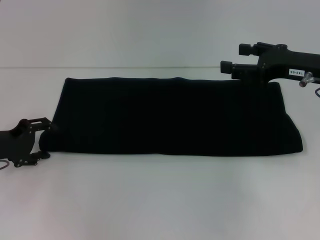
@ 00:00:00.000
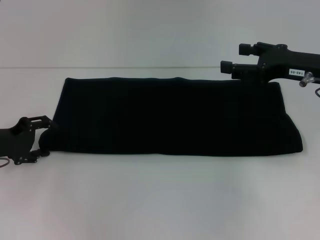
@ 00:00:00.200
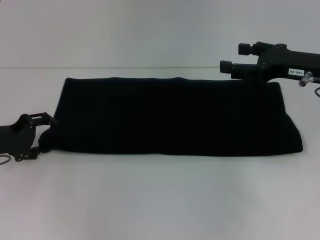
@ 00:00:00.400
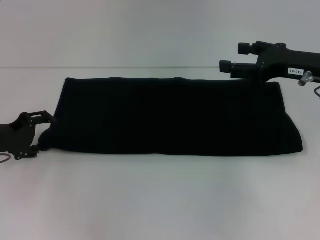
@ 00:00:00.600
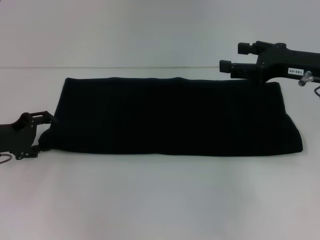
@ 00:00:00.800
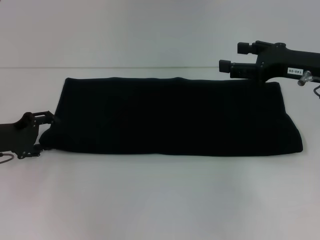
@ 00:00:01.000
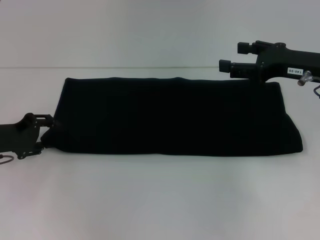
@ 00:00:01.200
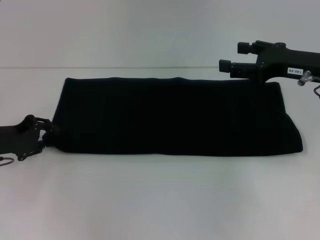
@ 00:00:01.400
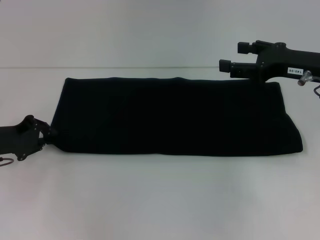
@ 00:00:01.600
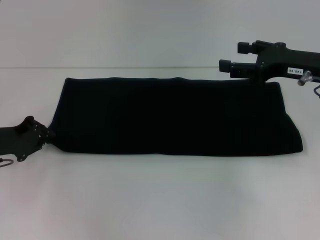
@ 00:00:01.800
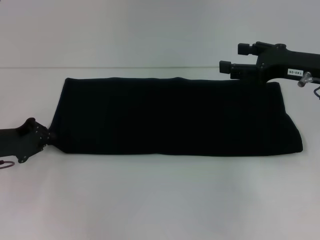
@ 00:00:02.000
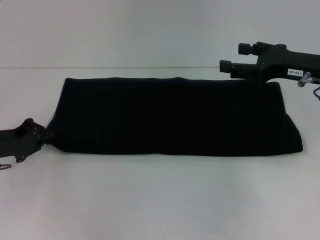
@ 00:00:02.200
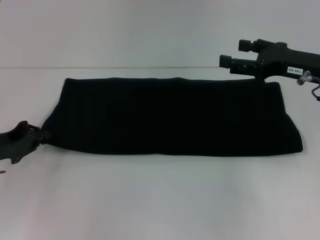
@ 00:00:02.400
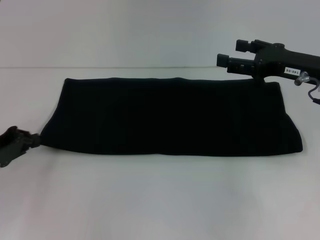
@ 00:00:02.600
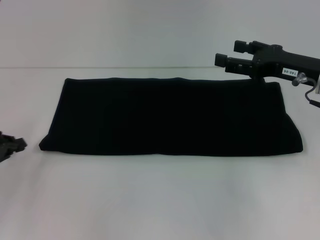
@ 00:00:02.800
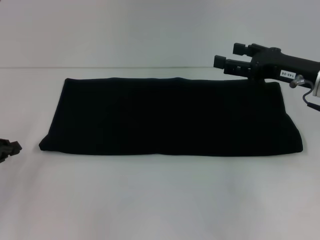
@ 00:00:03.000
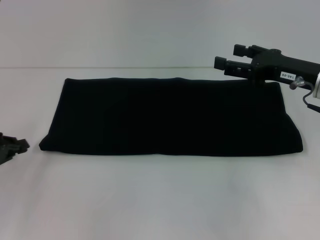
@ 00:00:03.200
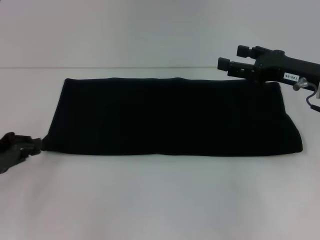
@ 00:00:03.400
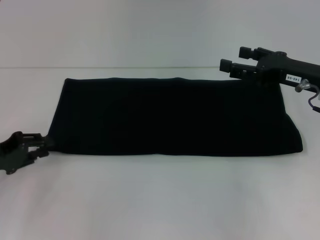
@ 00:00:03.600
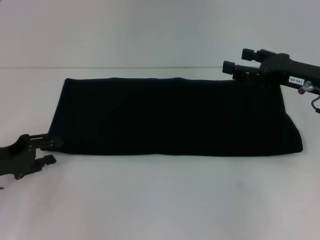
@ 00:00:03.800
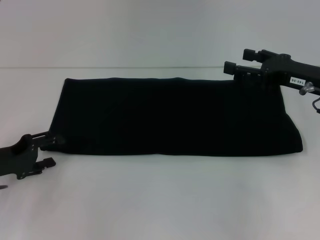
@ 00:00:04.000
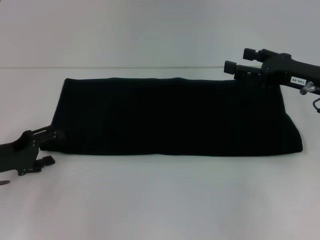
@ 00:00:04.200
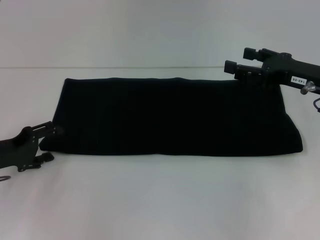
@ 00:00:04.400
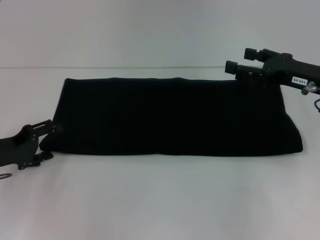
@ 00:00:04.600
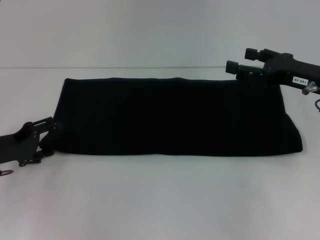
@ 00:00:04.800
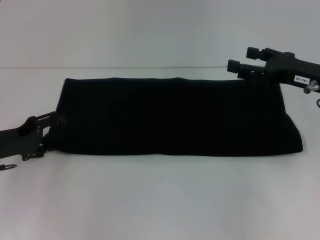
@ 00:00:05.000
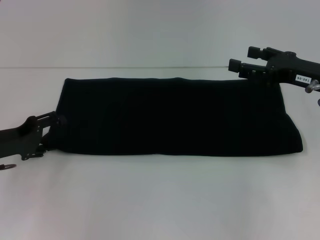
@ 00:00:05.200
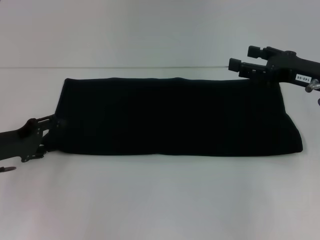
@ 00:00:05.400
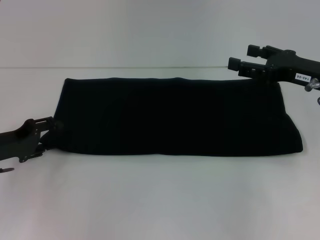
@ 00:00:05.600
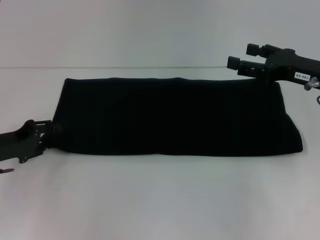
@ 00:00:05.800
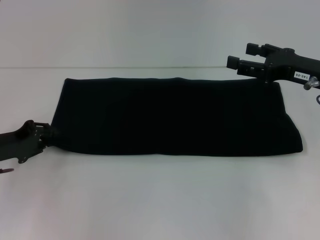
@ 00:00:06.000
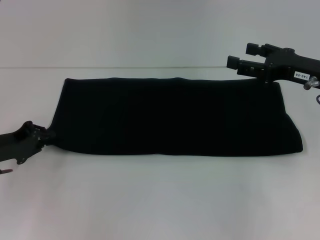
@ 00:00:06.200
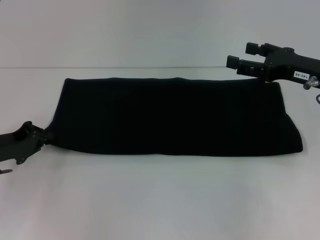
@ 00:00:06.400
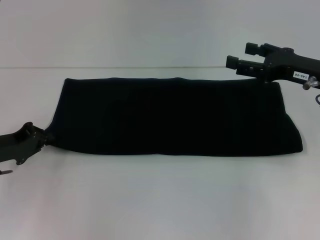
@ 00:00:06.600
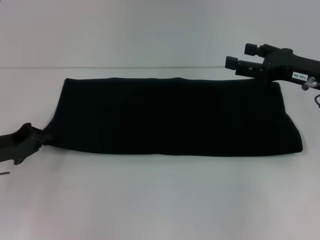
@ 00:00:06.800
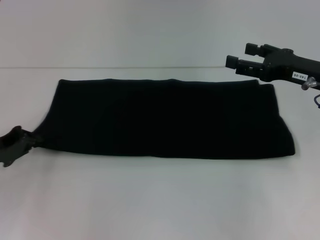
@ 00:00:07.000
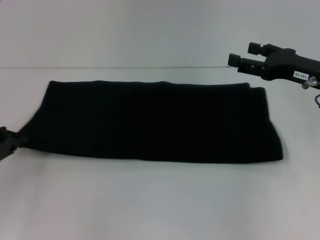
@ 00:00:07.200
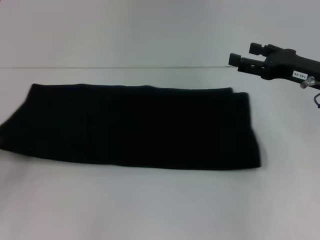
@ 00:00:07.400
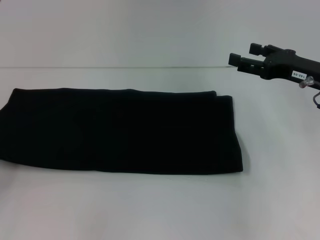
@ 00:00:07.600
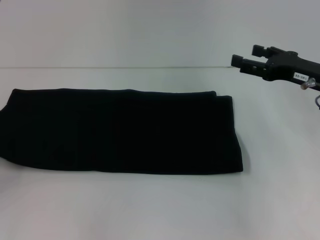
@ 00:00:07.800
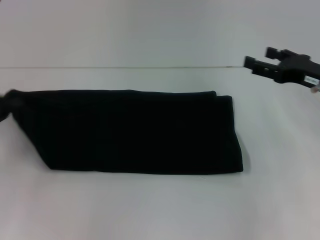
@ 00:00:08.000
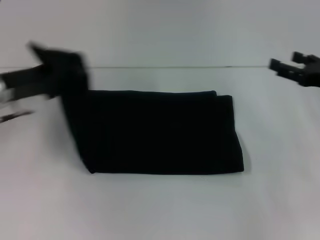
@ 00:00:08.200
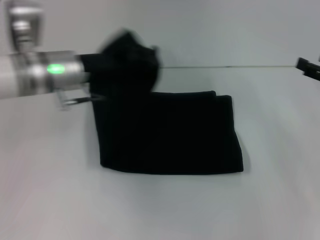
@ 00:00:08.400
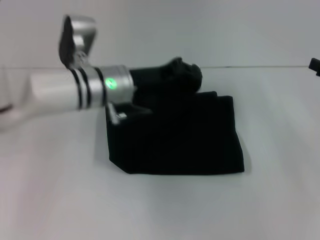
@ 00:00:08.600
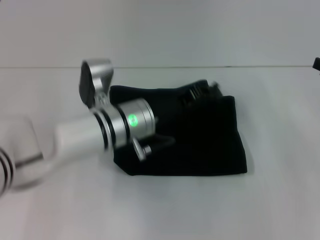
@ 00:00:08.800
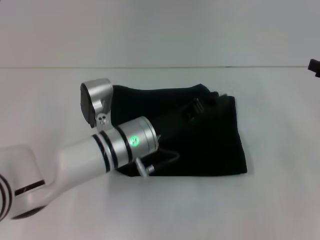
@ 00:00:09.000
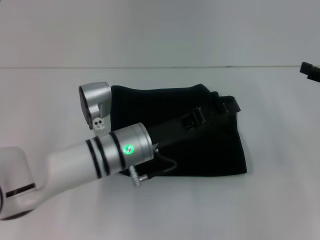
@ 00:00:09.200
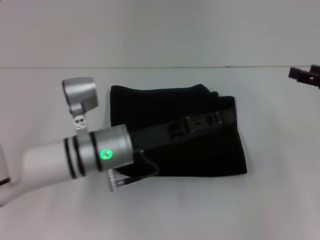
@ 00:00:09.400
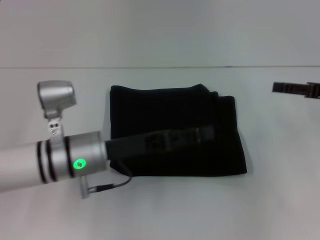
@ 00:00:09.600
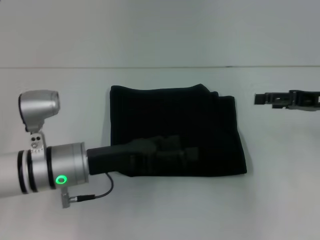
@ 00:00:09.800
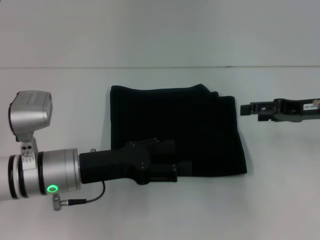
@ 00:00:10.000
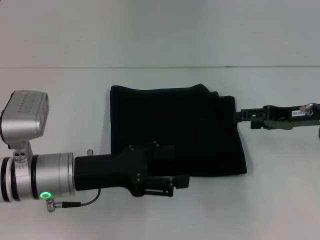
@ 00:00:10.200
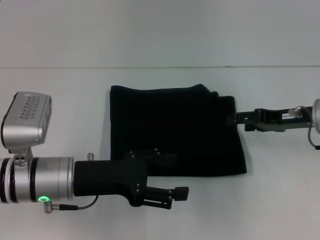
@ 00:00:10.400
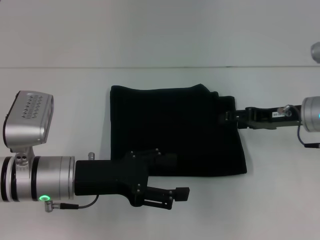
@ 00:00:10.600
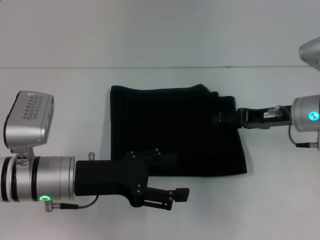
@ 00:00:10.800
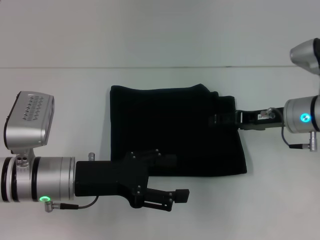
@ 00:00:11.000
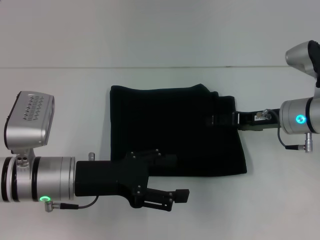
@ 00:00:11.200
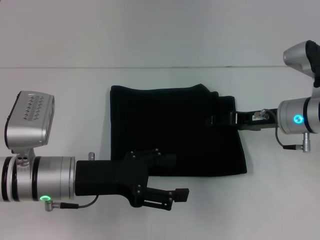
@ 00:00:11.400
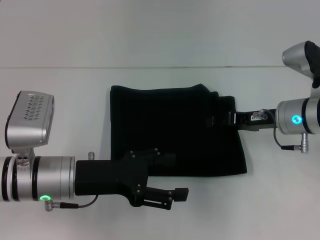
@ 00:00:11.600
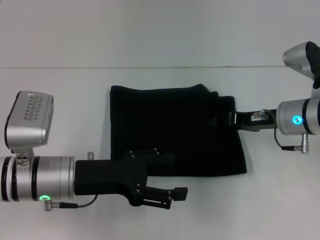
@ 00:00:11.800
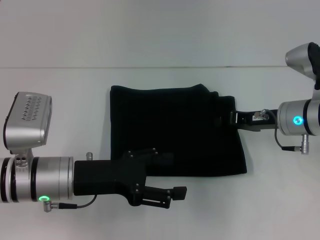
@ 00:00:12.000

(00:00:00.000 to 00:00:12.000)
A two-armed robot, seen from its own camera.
Step, 00:00:00.000 - 00:00:10.000: Fold the clothes with your left hand.
00:00:00.000 - 00:00:01.600: The left gripper closes.
00:00:01.600 - 00:00:03.000: The left gripper is displaced backward and to the left by about 10 cm.
00:00:03.000 - 00:00:04.400: The left gripper changes place by about 5 cm, and opens.
00:00:04.400 - 00:00:06.000: The left gripper closes.
00:00:06.000 - 00:00:07.600: The left gripper is displaced to the left and backward by approximately 10 cm, and closes.
00:00:07.600 - 00:00:09.000: The left gripper shifts some 35 cm to the right; the right gripper moves to the right, roughly 10 cm.
00:00:09.000 - 00:00:10.400: The two grippers go about 10 cm to the left. The left gripper opens up.
00:00:10.400 - 00:00:12.000: The right gripper moves approximately 5 cm, and closes.

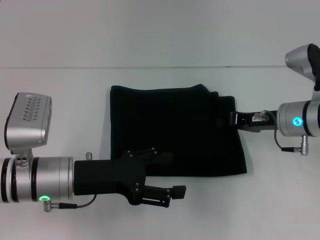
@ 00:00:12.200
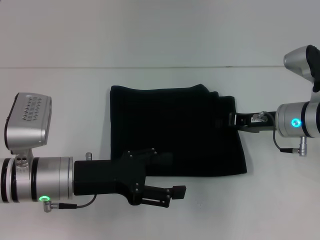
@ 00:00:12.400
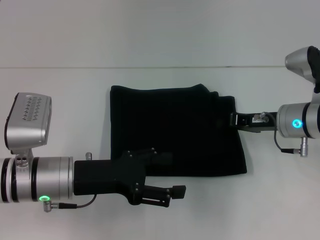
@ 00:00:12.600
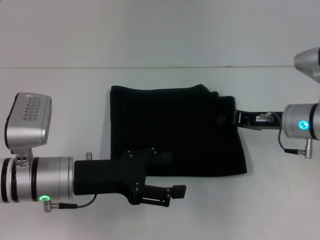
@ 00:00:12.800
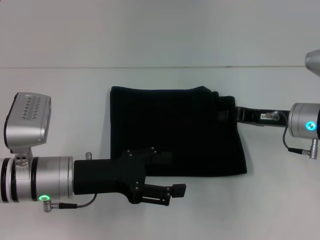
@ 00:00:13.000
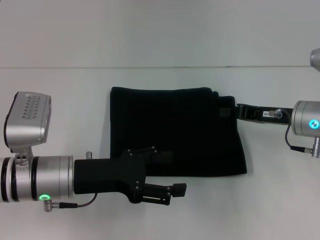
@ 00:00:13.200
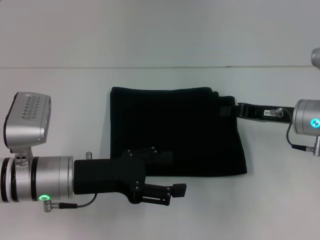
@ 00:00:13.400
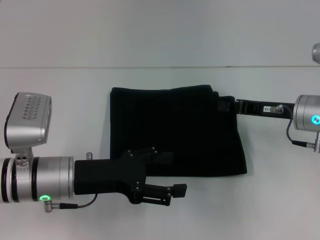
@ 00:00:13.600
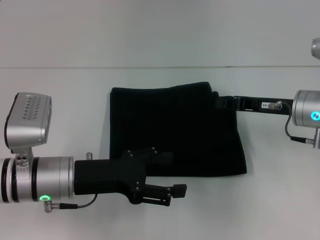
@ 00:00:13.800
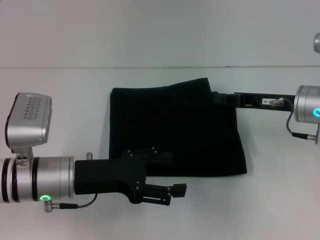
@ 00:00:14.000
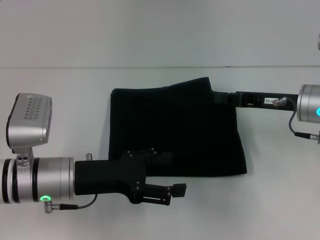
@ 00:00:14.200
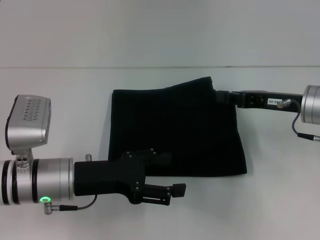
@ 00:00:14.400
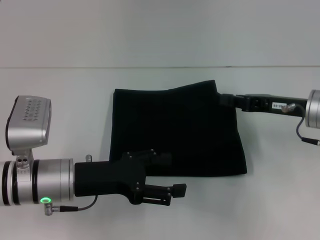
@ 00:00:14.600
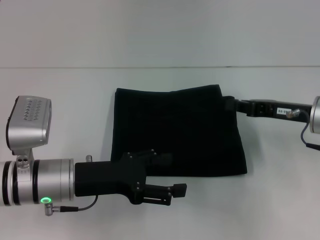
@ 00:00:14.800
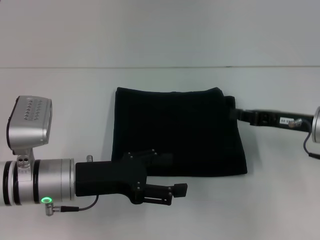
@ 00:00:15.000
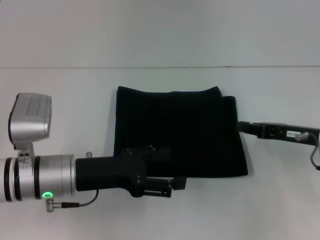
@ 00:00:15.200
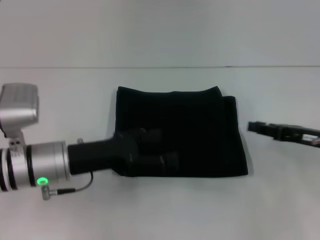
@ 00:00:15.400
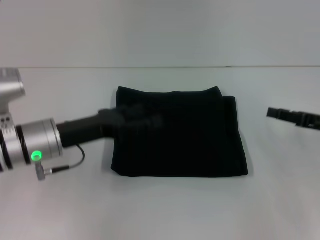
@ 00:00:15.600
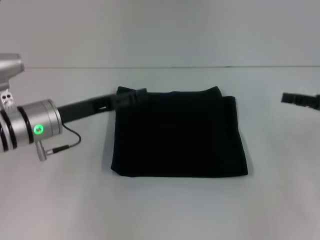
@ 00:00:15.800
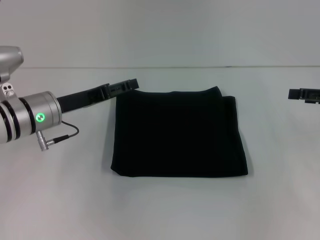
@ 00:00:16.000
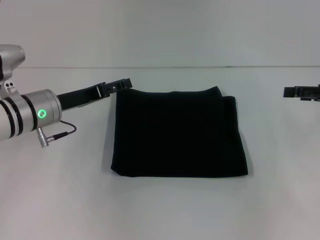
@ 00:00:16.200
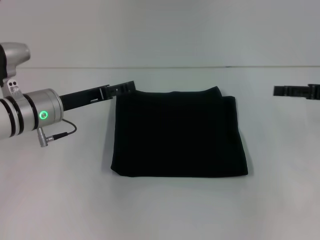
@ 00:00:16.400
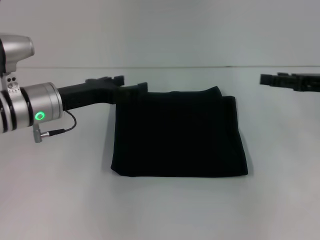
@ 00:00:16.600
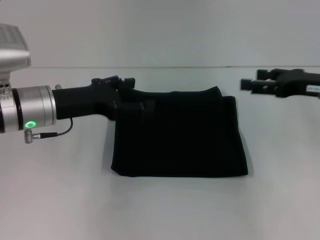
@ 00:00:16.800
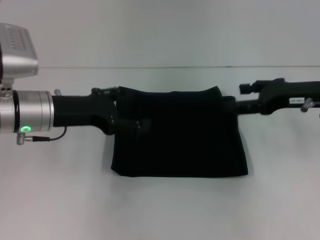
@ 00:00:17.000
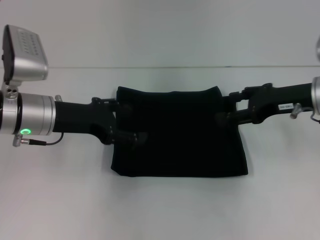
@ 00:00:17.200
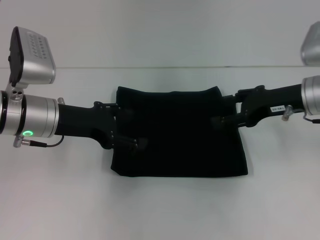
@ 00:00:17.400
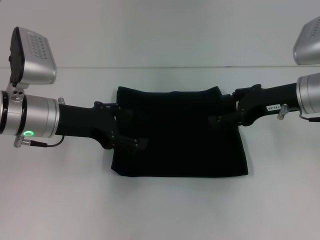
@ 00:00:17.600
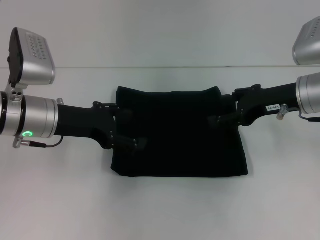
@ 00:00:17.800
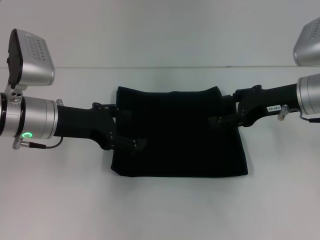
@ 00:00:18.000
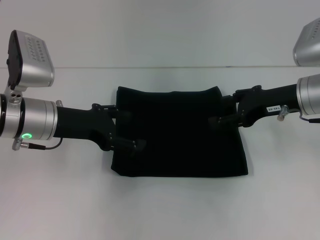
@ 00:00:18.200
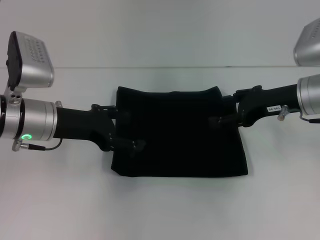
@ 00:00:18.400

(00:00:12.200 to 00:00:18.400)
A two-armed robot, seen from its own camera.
00:00:12.200 - 00:00:13.800: There are only small adjustments of the grippers.
00:00:13.800 - 00:00:15.400: The right gripper travels to the right and backward by about 10 cm.
00:00:15.400 - 00:00:16.800: The left gripper shifts roughly 5 cm forward, while the right gripper travels upward by some 5 cm, and opens its fingers.
00:00:16.800 - 00:00:18.400: The right gripper moves to the left, about 5 cm.
